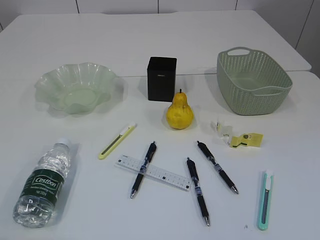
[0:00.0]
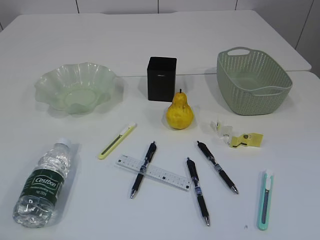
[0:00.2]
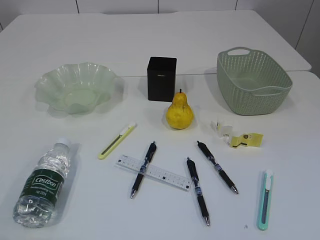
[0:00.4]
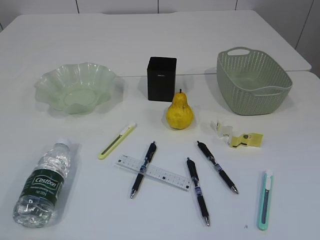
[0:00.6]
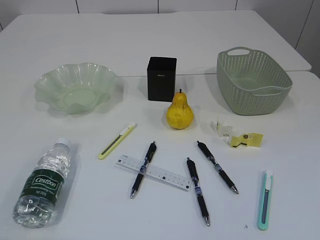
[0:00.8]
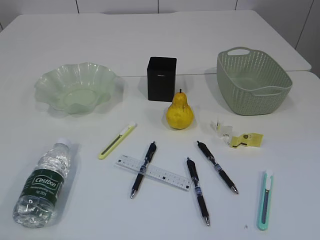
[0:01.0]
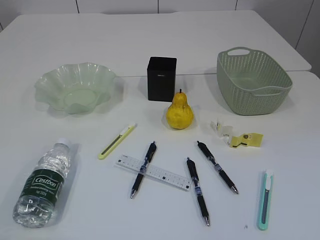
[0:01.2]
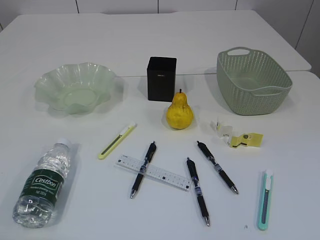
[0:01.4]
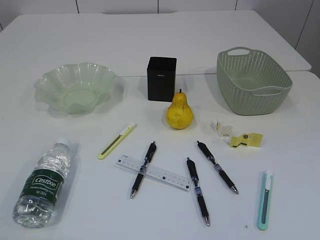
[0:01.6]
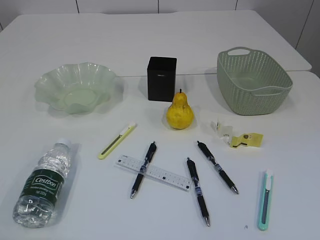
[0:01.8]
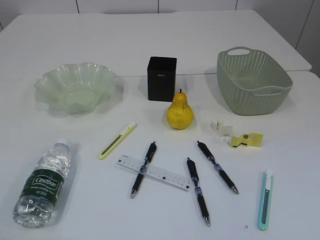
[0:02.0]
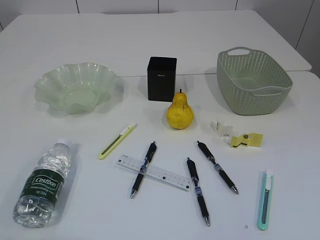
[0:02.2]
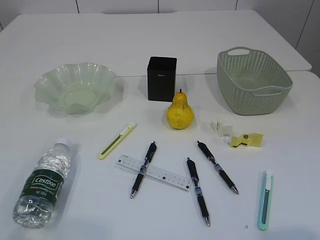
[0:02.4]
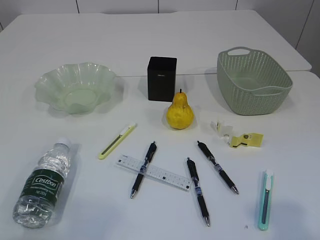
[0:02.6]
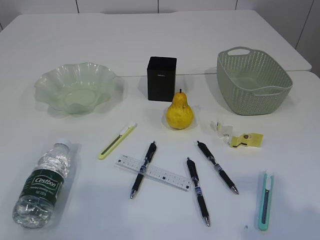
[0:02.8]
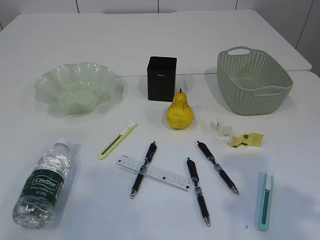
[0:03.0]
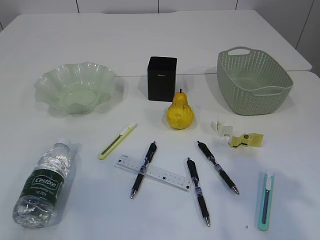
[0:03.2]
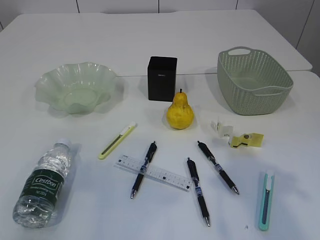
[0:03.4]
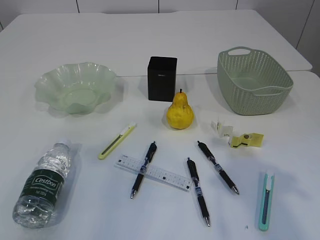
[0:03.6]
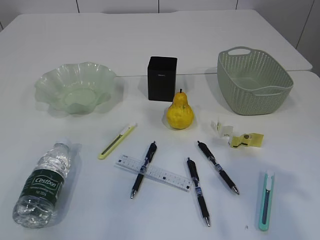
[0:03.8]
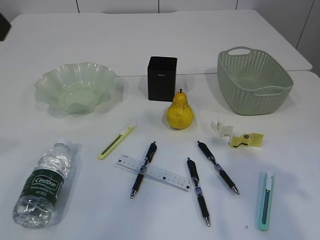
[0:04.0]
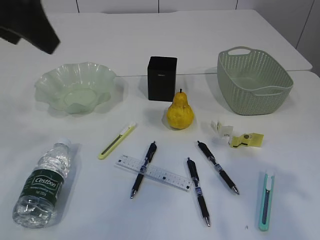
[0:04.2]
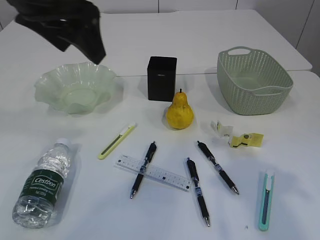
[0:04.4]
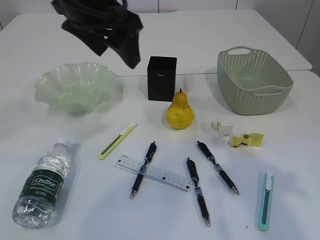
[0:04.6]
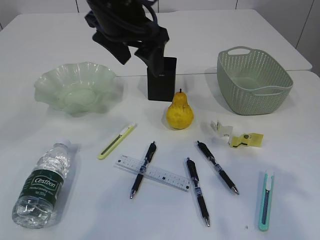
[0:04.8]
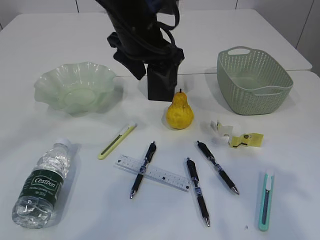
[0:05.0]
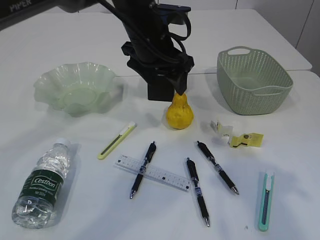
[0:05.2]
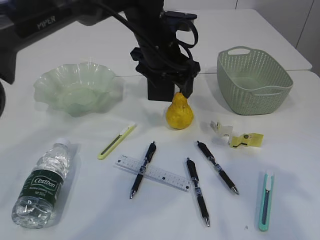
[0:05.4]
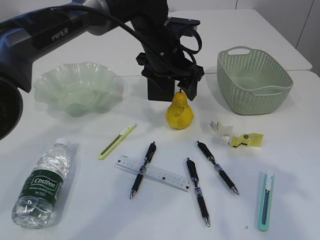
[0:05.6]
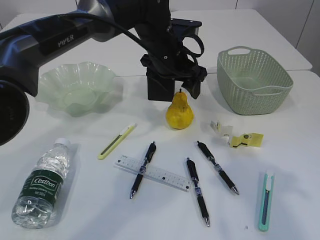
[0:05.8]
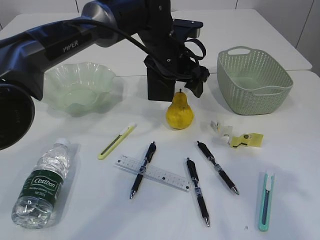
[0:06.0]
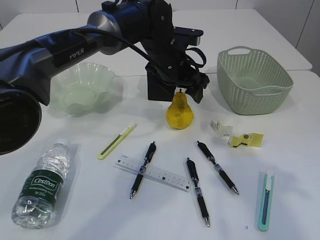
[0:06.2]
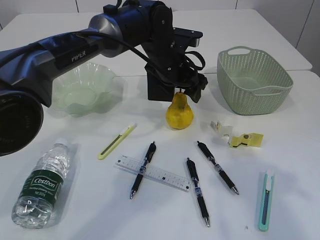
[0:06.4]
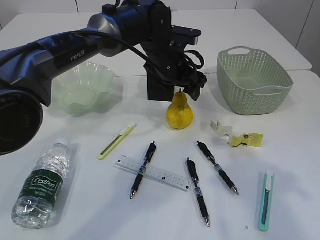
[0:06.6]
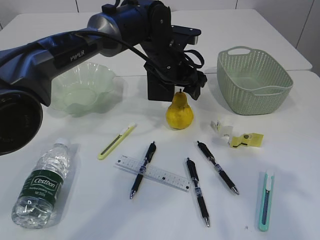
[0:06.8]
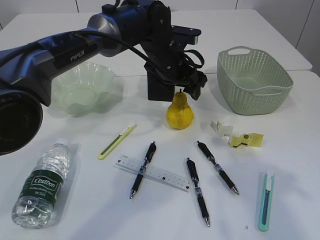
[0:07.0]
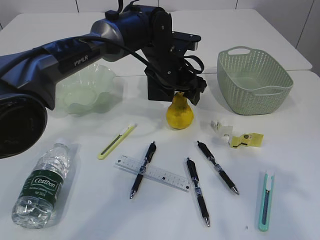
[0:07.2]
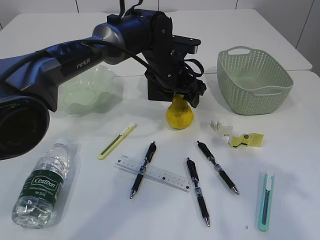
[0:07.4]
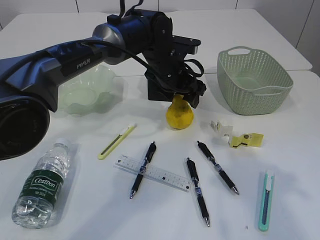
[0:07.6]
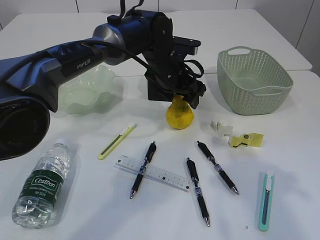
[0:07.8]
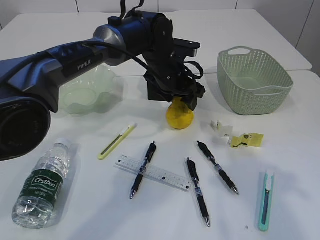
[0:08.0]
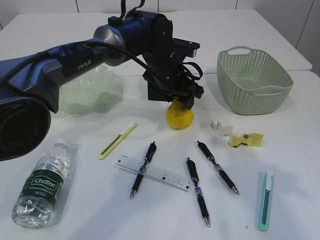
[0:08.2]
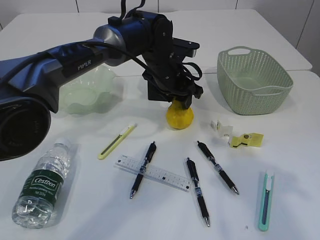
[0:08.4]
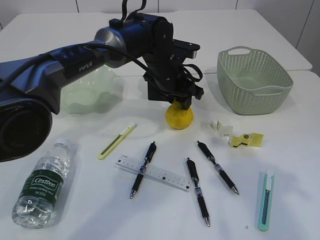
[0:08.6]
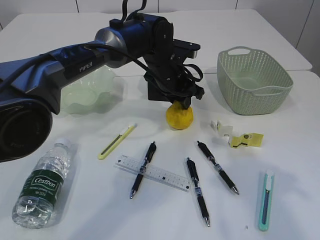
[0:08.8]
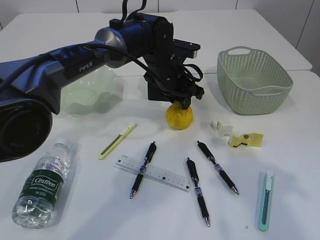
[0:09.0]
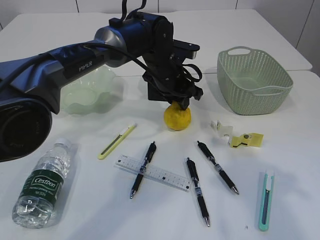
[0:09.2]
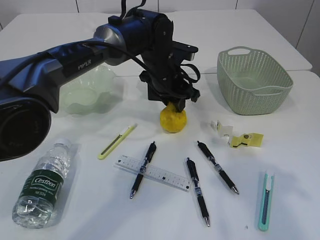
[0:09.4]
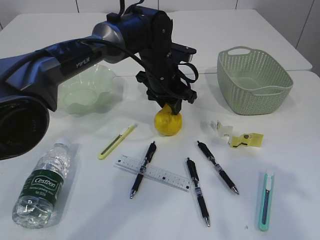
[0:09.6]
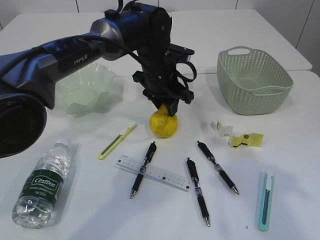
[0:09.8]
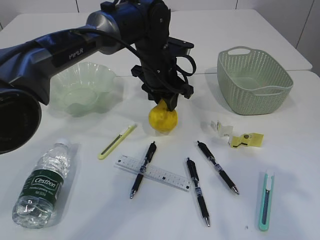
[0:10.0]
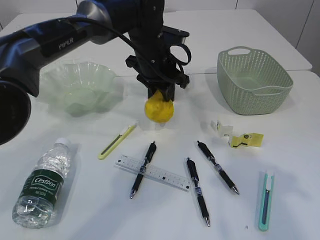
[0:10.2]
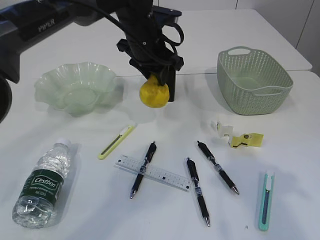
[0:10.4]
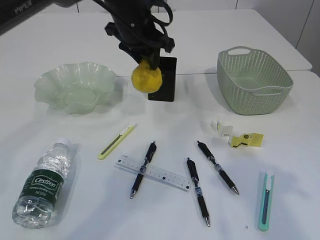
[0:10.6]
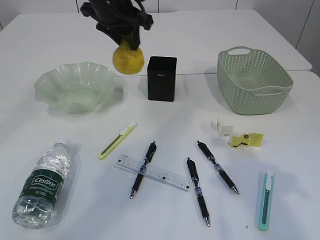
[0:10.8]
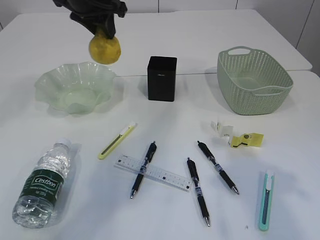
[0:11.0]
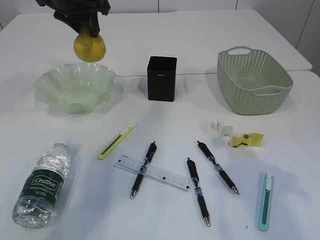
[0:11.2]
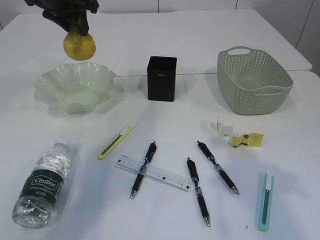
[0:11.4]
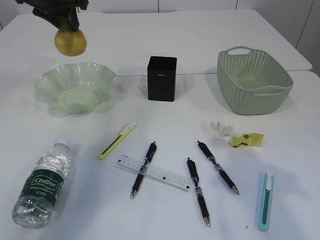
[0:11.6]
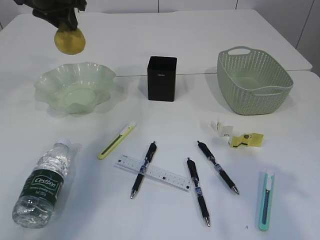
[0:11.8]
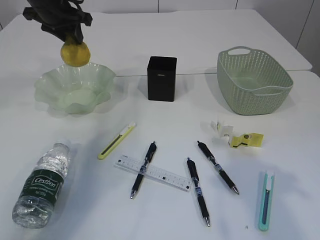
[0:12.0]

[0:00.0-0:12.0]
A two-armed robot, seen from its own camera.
0:01.6 to 0:03.0: The left gripper goes about 10 cm upward and forward; the right gripper moves forward, about 15 cm.
0:03.0 to 0:04.4: The left gripper shifts roughly 30 cm forward and to the right.
0:04.4 to 0:06.0: The left gripper moves downward, to the right and forward, about 25 cm.
0:06.0 to 0:07.6: There are only small adjustments of the grippers.
0:07.6 to 0:09.0: The left gripper closes.
0:09.0 to 0:10.4: The left gripper goes some 5 cm upward.
0:10.4 to 0:12.0: The left gripper heads to the left, covering approximately 20 cm.

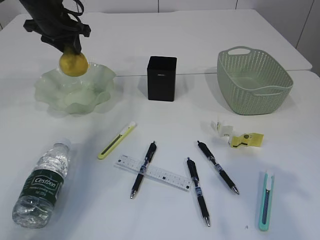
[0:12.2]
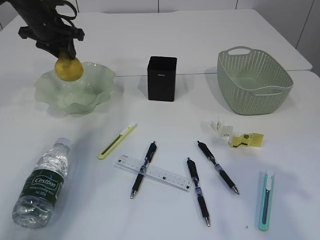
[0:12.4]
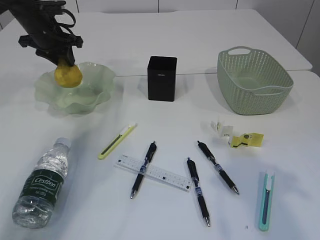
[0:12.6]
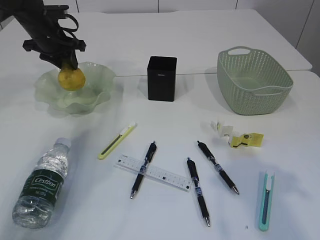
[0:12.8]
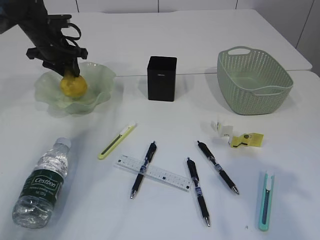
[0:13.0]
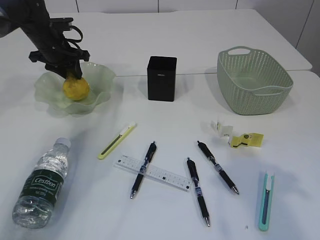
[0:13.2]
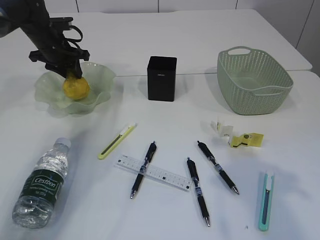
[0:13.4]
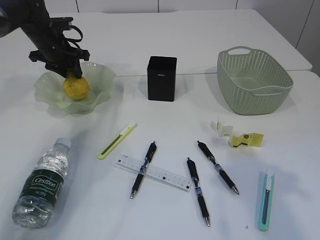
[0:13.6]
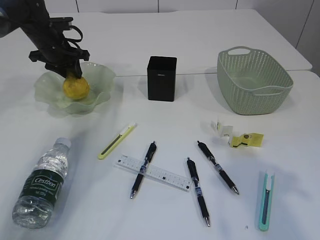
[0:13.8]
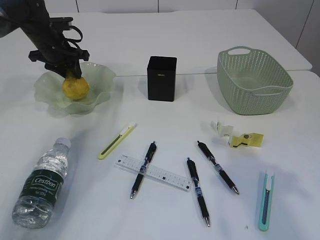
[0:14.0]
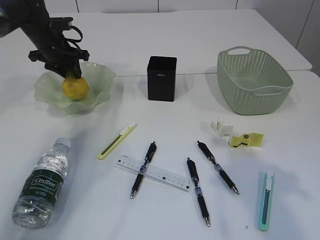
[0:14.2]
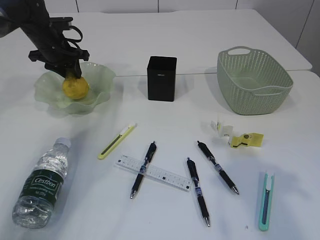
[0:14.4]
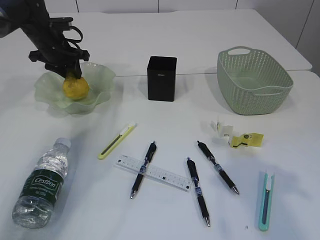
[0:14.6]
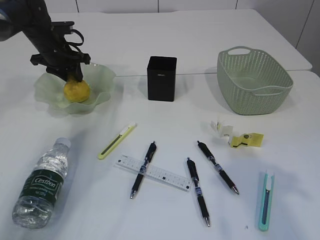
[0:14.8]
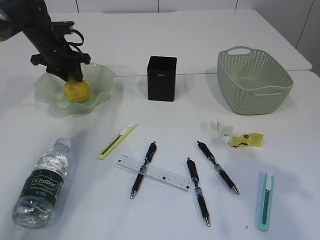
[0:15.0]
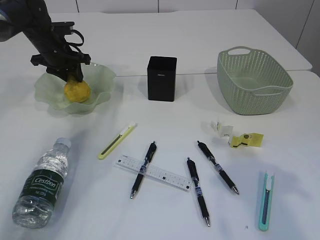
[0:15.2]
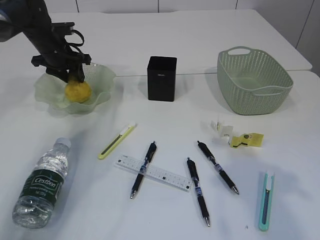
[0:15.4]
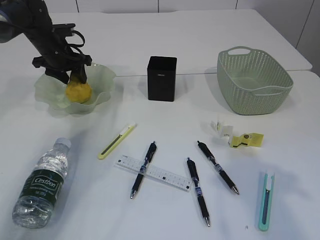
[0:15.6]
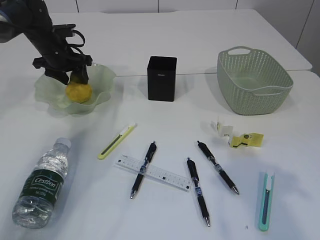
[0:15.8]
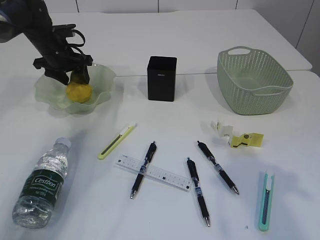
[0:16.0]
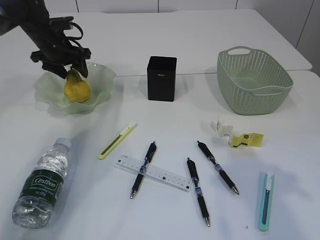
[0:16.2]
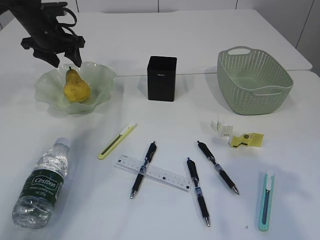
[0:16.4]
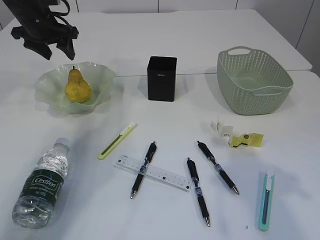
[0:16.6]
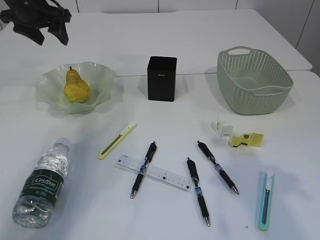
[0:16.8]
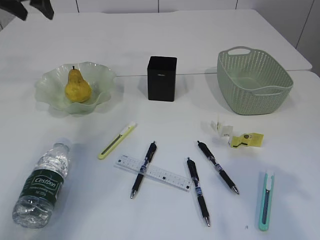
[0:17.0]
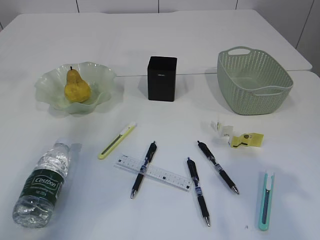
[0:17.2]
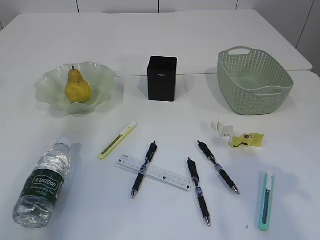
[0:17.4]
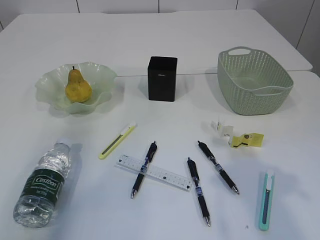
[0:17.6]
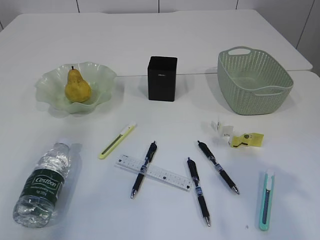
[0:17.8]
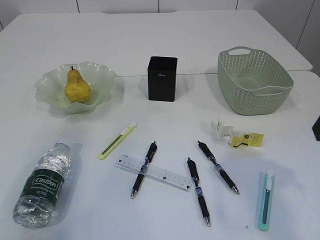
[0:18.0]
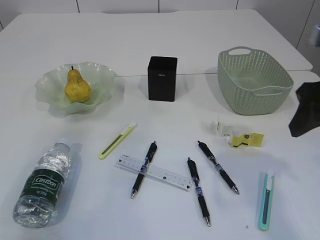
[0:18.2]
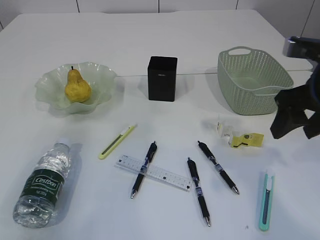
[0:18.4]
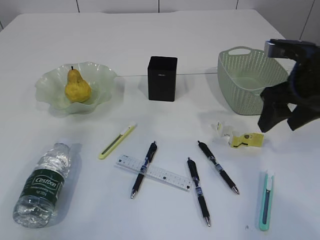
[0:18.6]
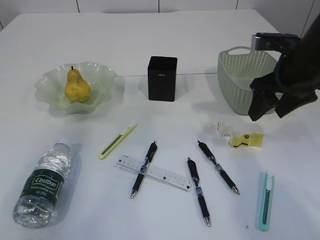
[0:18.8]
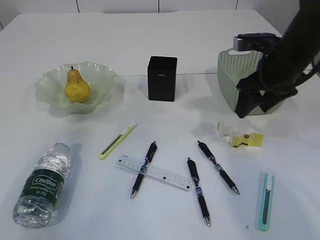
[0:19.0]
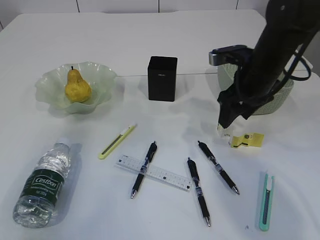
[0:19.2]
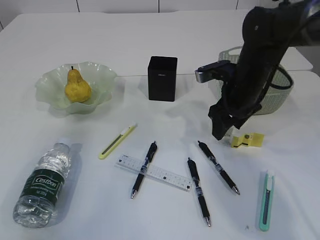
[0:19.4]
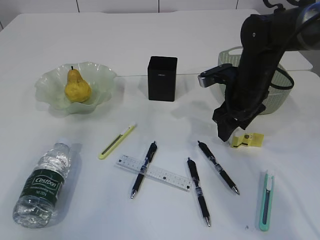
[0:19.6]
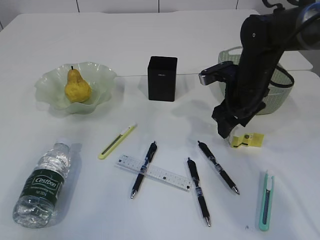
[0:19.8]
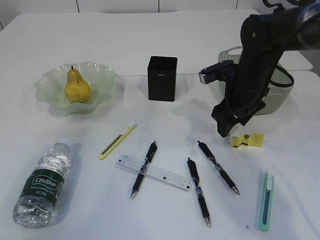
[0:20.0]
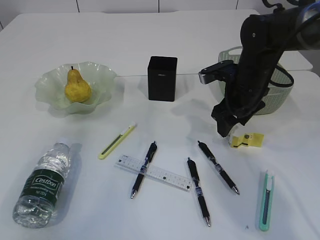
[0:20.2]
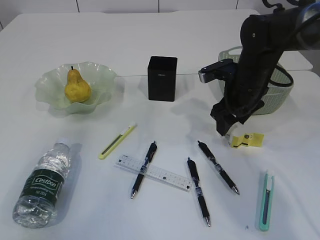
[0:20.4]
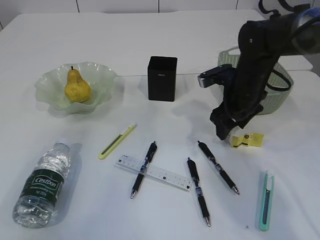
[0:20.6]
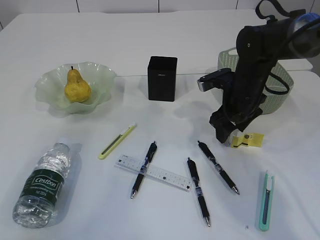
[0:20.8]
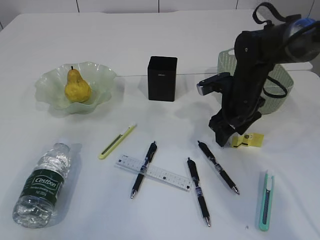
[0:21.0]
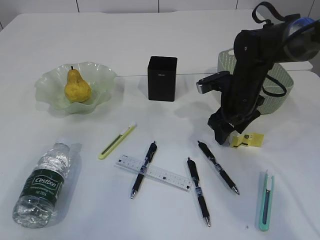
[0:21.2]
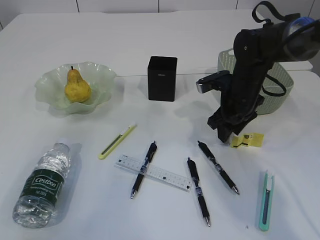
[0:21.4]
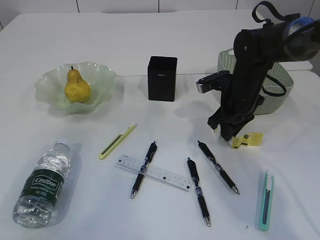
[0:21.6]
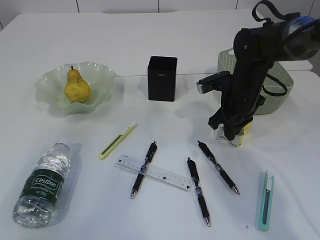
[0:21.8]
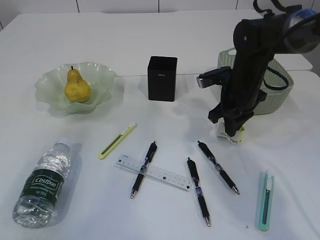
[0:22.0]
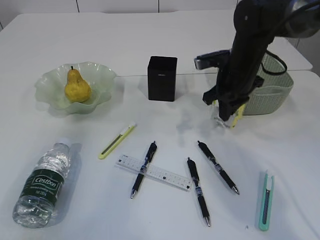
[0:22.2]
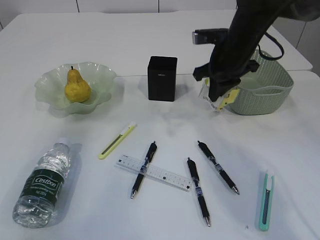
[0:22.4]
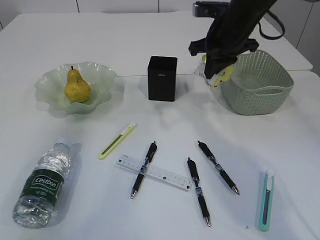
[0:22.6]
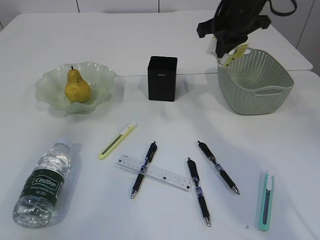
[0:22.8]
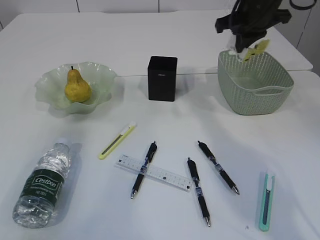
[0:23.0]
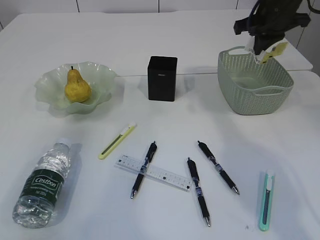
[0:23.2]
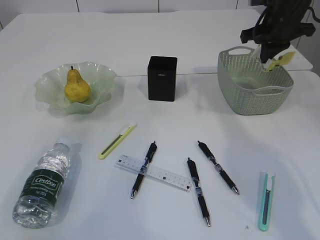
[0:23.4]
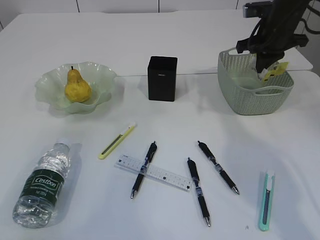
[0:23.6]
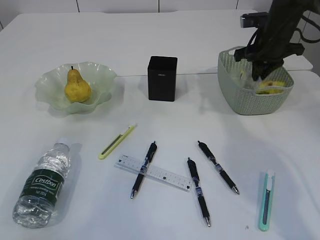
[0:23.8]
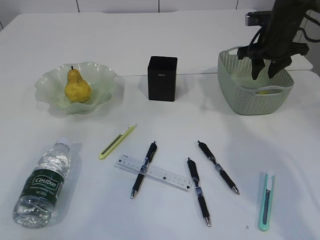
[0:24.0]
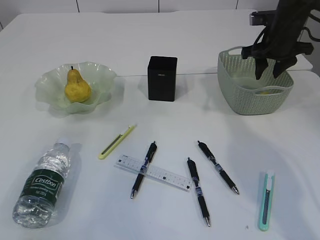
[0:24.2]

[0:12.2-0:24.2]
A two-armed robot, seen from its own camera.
Step, 0:12.2 to 0:16.6: Place the pear in the plate.
Step, 0:16.8 to 0:22.4: Pick up the plastic.
0:12.2 to 0:13.8: The left gripper goes some 5 cm downward.
0:13.8 to 0:15.2: Both grippers stay about where they are.
0:15.2 to 0:16.6: The left gripper moves upward, about 10 cm, and opens up.
0:16.6 to 0:18.2: The right gripper shifts approximately 5 cm forward. Meanwhile the left gripper heads backward and upward, covering approximately 25 cm.
0:18.2 to 0:19.8: The right gripper heads forward and downward, covering about 20 cm.
0:19.8 to 0:21.2: There are only small adjustments of the grippers.
0:21.2 to 0:22.6: The right gripper shifts about 10 cm upward, and closes its fingers.
0:22.6 to 0:24.2: The right gripper shifts approximately 10 cm to the right, and opens.
